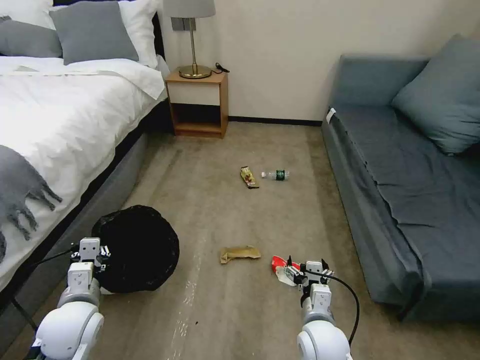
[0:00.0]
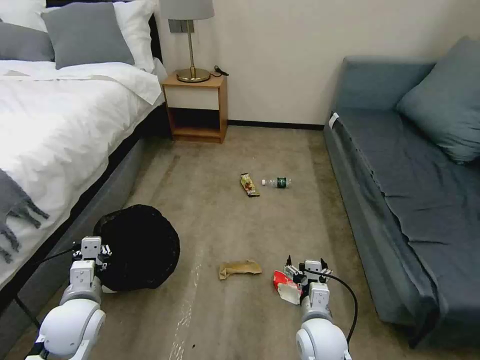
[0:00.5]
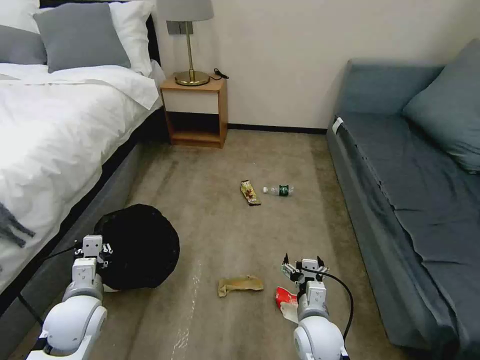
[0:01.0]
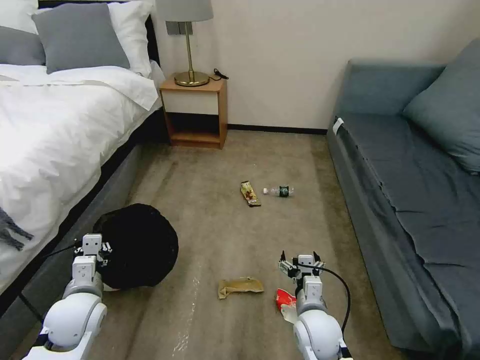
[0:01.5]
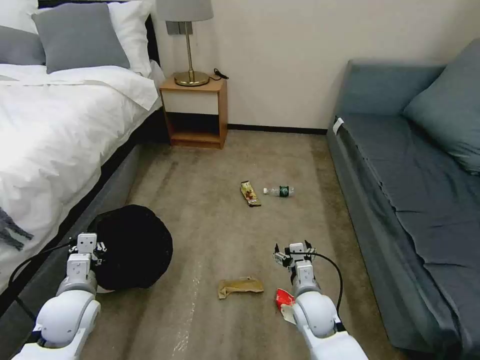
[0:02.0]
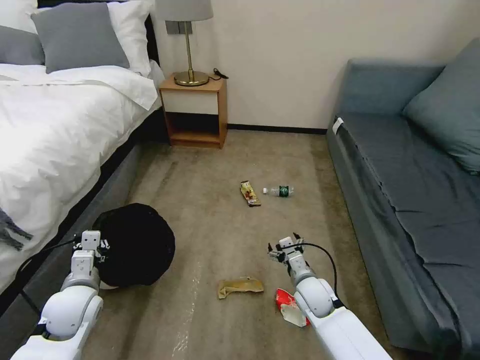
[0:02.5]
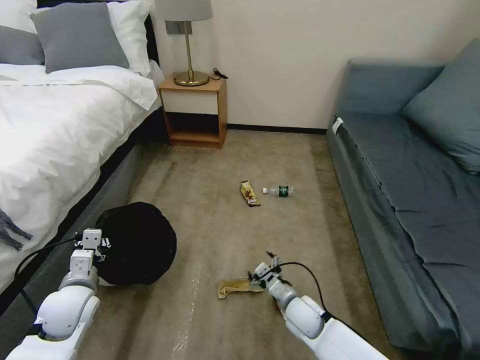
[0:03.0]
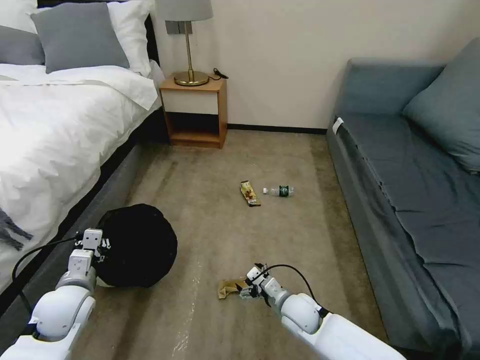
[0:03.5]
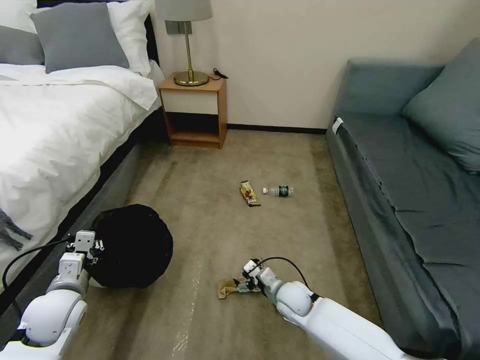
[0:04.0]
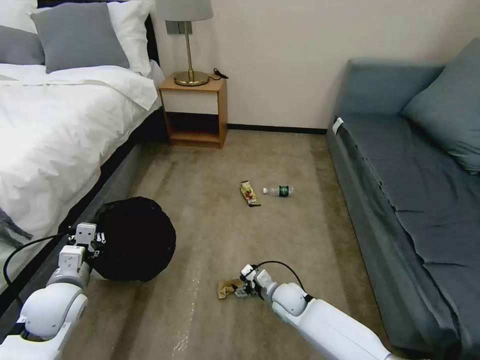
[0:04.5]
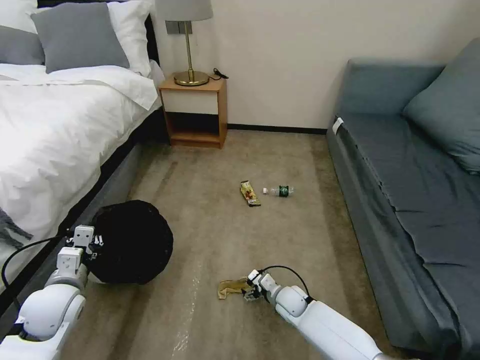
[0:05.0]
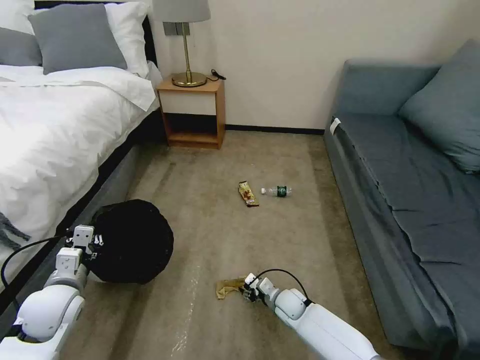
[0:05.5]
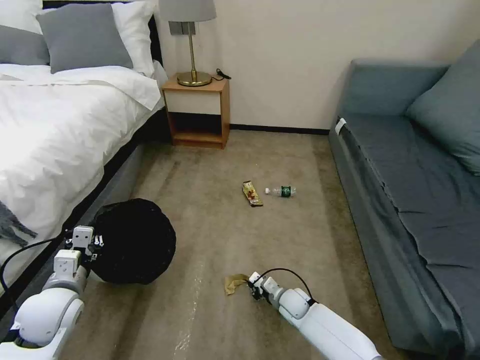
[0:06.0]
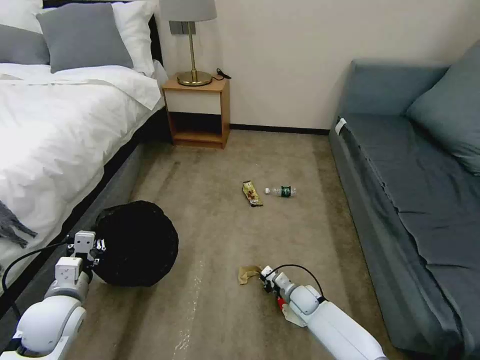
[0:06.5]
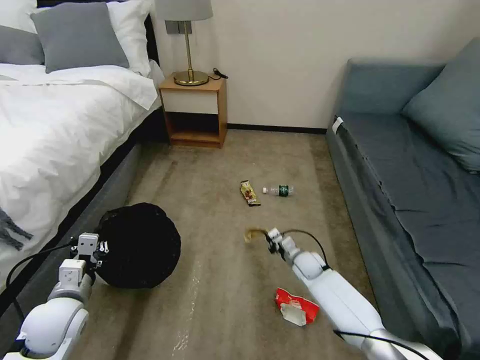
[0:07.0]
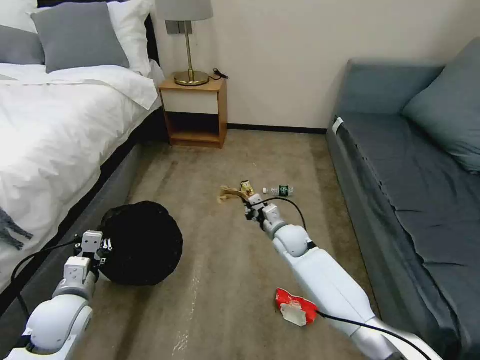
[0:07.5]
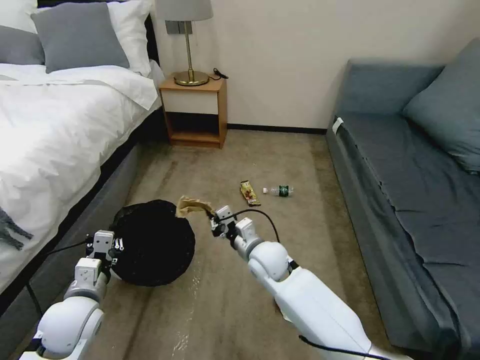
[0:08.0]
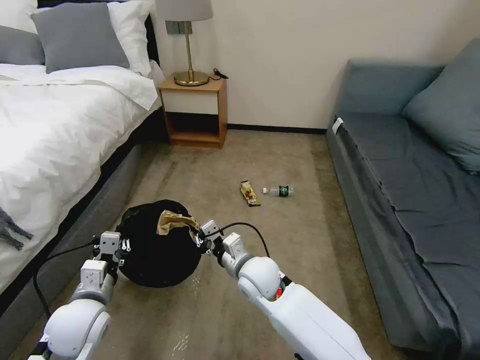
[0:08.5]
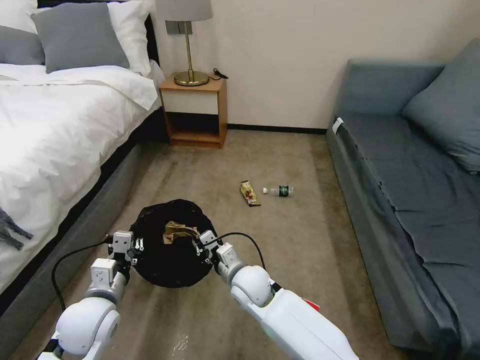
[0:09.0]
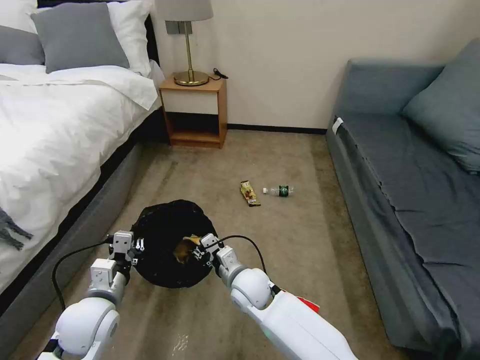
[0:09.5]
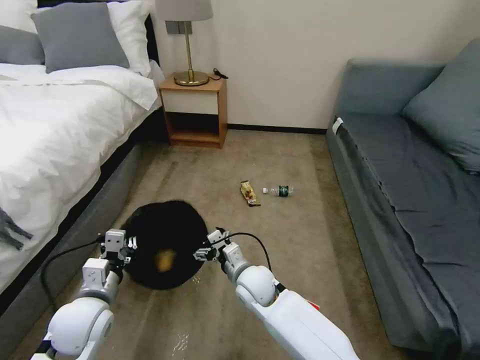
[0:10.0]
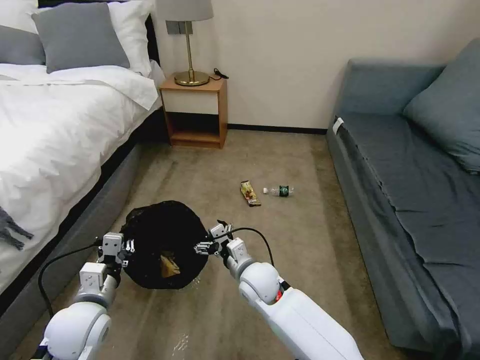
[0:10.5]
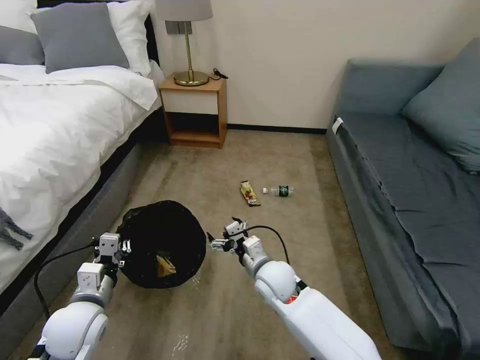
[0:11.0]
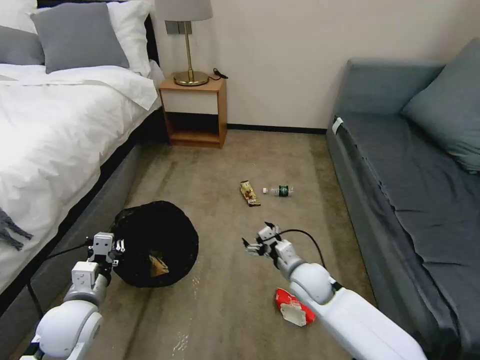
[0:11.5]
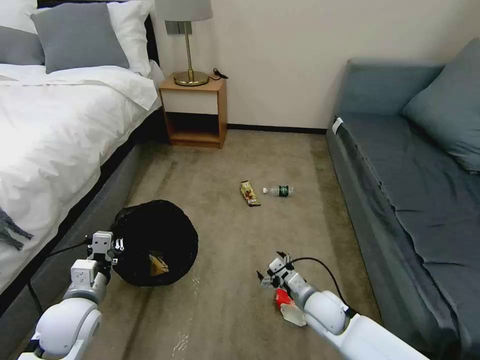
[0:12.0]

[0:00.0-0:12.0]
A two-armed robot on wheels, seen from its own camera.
Task of the whole recording: Pick up the trash bin, then pick up the garbage on the floor and place it into the trash bin.
0:00.0 to 0:02.0: The right gripper travels forward by about 5 cm.
0:02.0 to 0:04.0: The right gripper shifts approximately 10 cm downward and forward.
0:04.0 to 0:06.0: The right gripper travels downward by roughly 10 cm, and closes its fingers.
0:06.0 to 0:08.0: The right gripper is displaced upward and to the left by about 25 cm.
0:08.0 to 0:10.0: The right gripper ends up about 5 cm from where it was, and opens.
0:10.0 to 0:12.0: The right gripper travels to the right by about 20 cm.

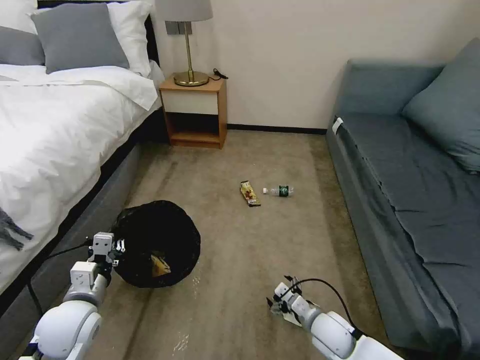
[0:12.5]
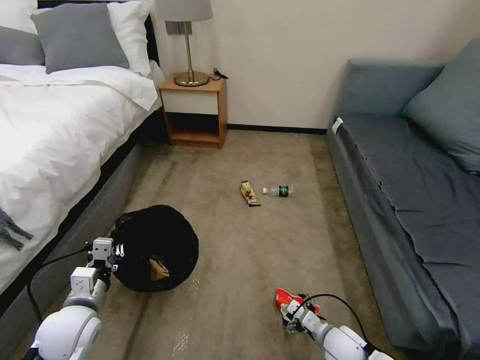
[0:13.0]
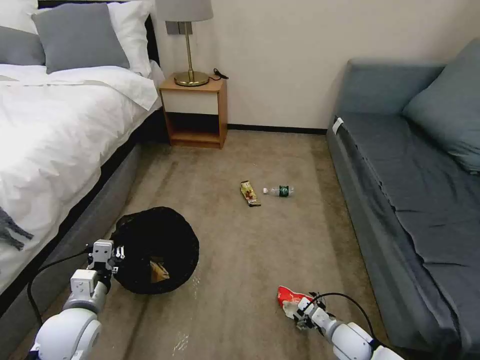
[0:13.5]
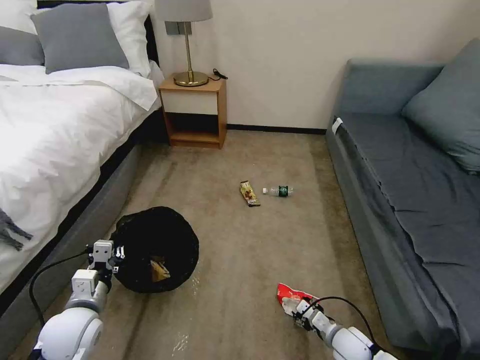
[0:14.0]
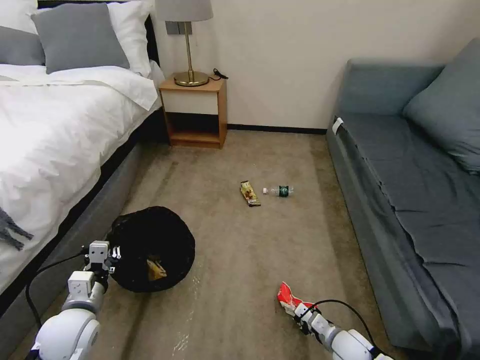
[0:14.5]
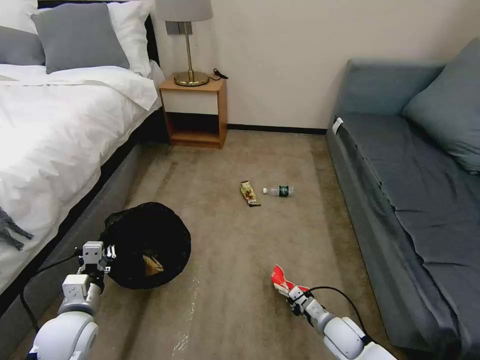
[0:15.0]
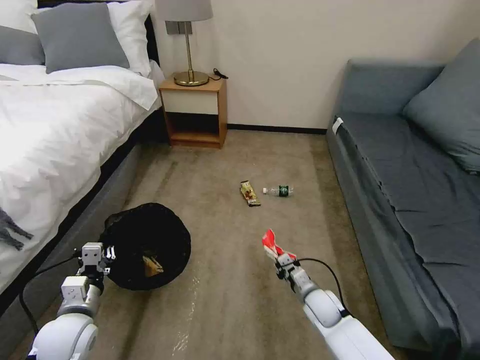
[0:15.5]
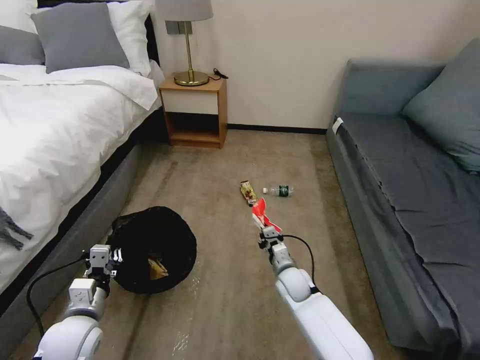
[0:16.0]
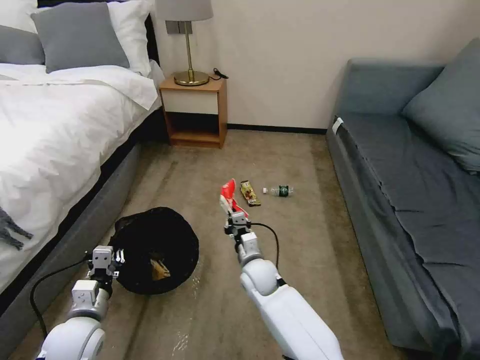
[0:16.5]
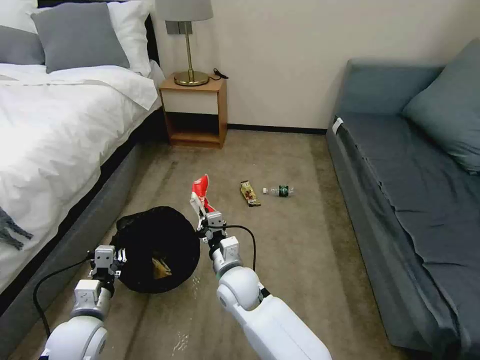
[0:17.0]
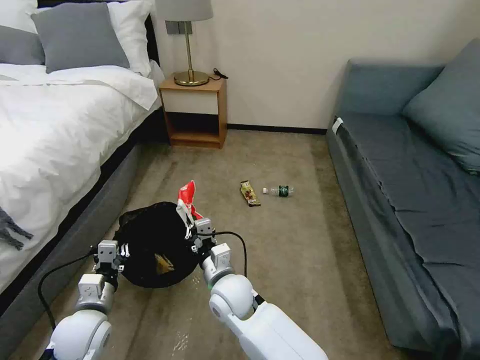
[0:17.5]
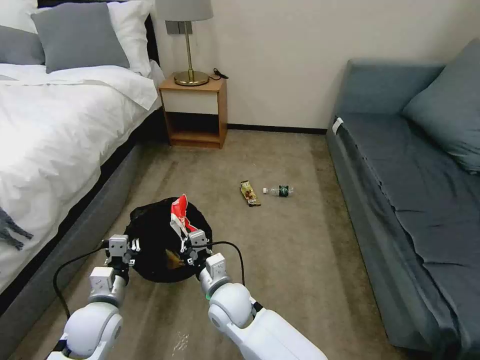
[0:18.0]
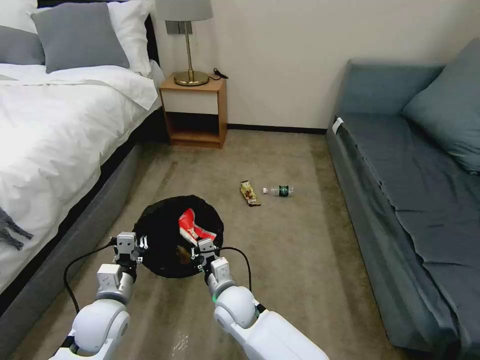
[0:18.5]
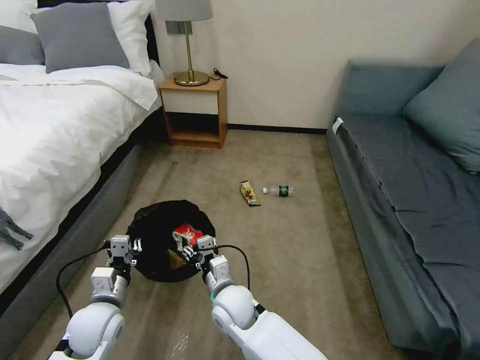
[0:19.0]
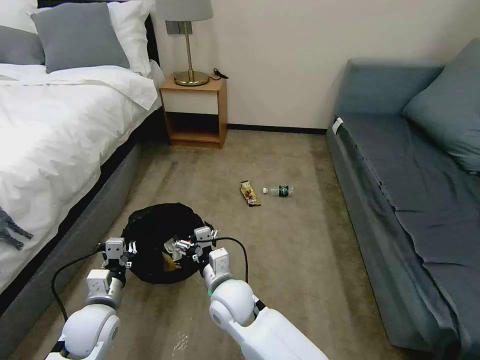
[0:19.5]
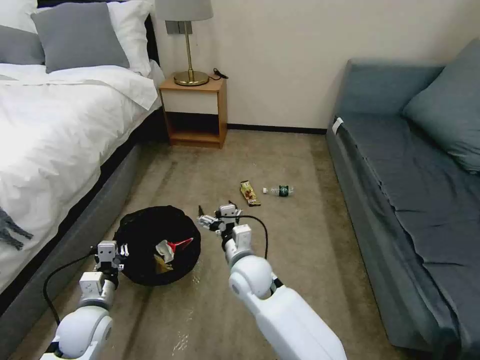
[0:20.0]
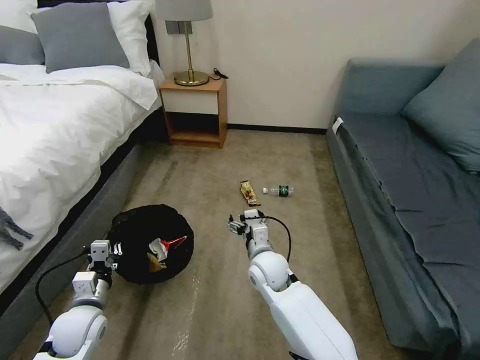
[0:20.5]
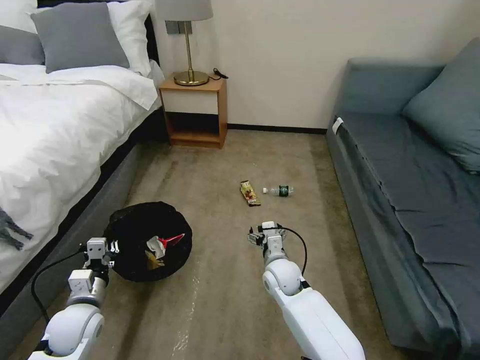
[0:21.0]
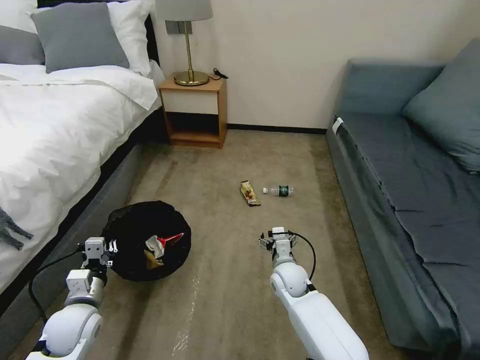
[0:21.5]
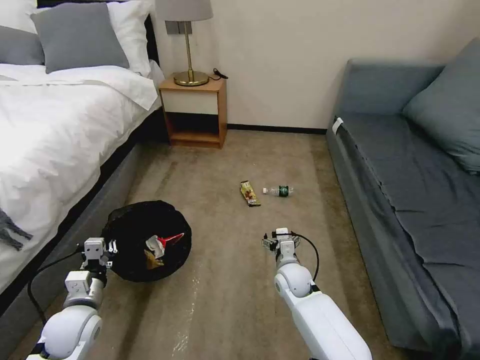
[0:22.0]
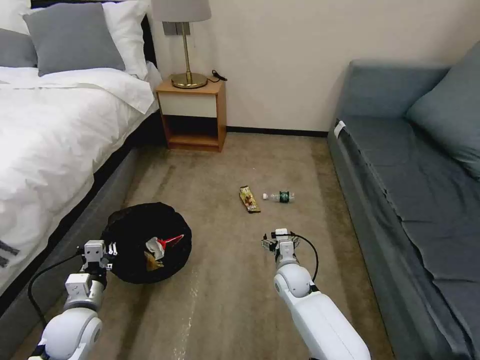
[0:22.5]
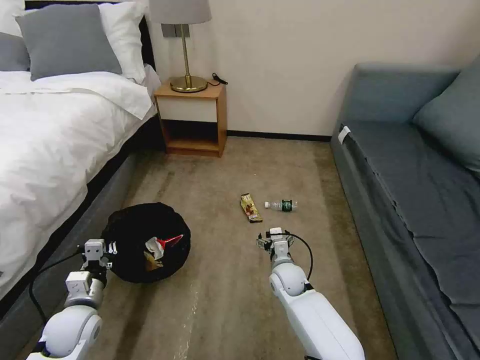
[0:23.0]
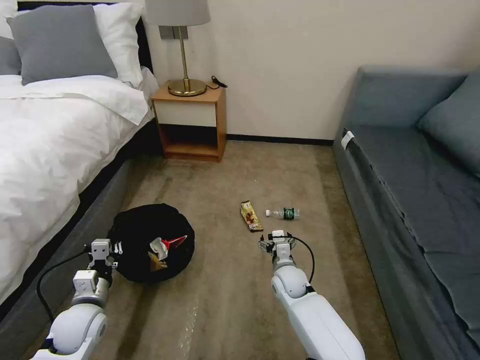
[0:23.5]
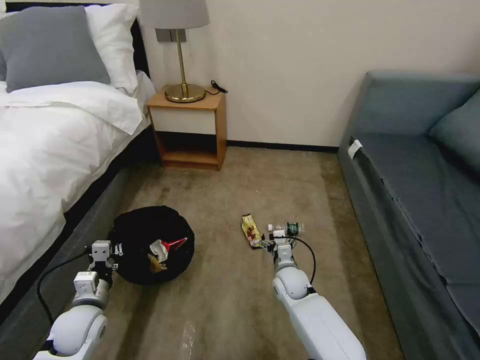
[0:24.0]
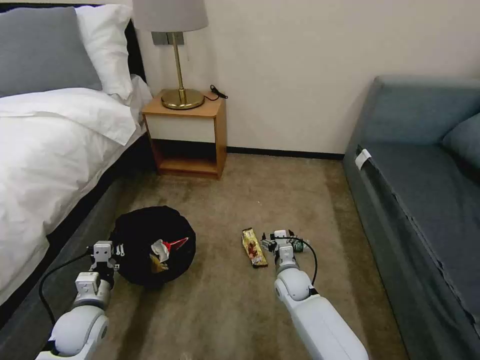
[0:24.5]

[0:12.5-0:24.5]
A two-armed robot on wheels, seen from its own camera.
Task of the whole recording: Pick up the trash bin, then pick up the garbage on the floor and place it into the trash bin.
0:12.5 to 0:14.5: The right gripper travels to the right and downward by roughly 10 cm, and closes up.
0:14.5 to 0:16.5: The right gripper goes roughly 30 cm to the left, forward and upward.
0:16.5 to 0:18.5: The left gripper changes place by roughly 5 cm, while the right gripper is displaced backward and to the left by some 10 cm.
0:18.5 to 0:20.5: The left gripper goes about 5 cm to the left, while the right gripper is displaced to the right and forward by roughly 10 cm, and opens.
0:20.5 to 0:22.5: The right gripper shifts roughly 10 cm downward and to the right.

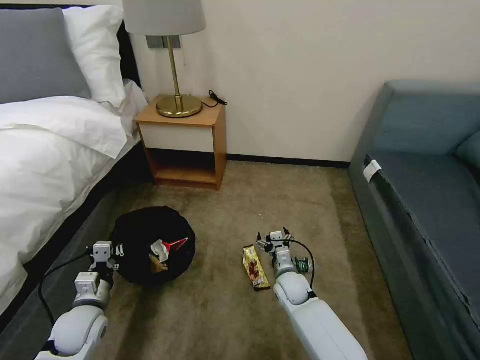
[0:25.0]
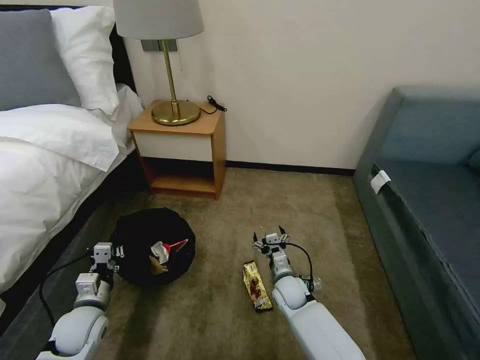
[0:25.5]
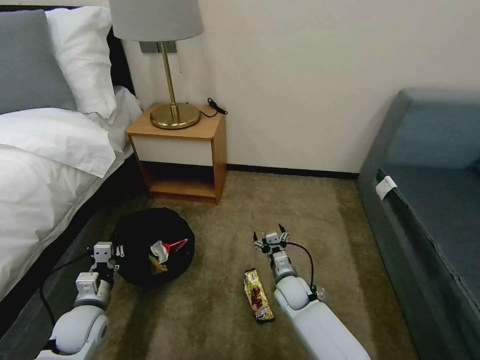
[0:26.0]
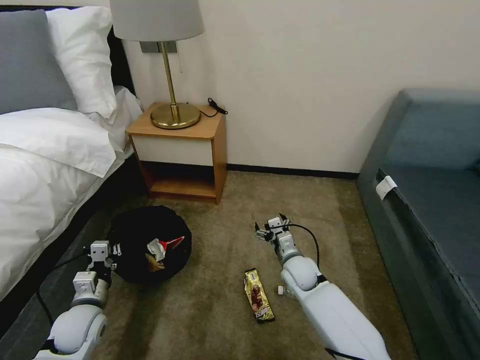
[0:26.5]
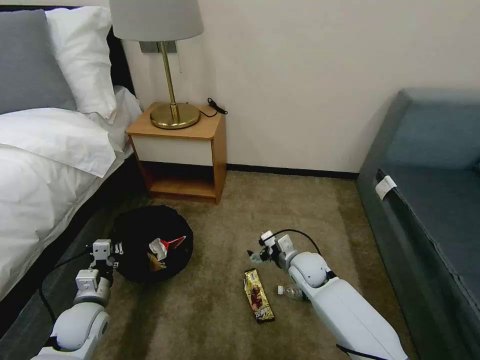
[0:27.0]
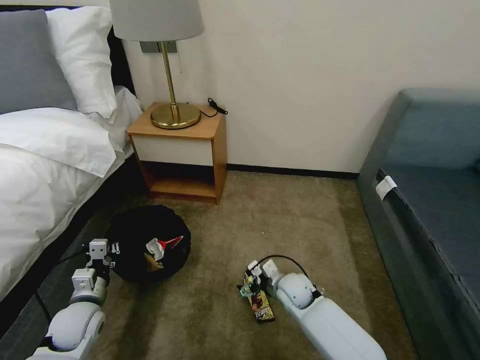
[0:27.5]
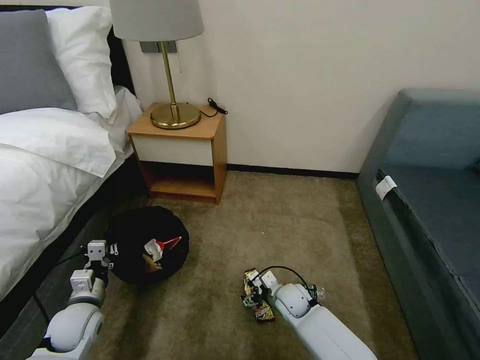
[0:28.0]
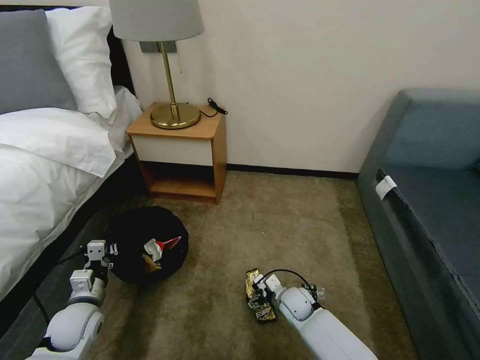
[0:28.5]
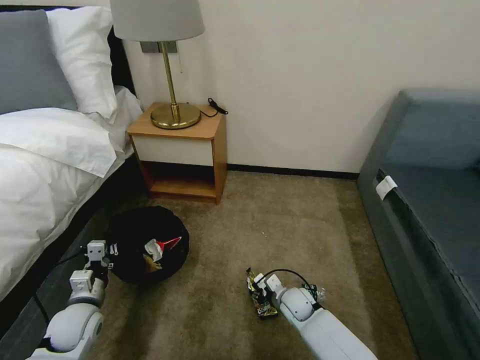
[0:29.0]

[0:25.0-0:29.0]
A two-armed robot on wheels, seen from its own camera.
Task of the whole recording: Pick up the trash bin, then pick up the garbage on the floor and place it into the trash bin.
0:25.0 to 0:27.0: The right gripper goes roughly 5 cm upward.
0:27.0 to 0:29.0: The right gripper travels downward and backward by some 15 cm, and closes up.
